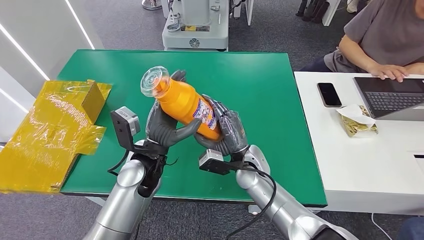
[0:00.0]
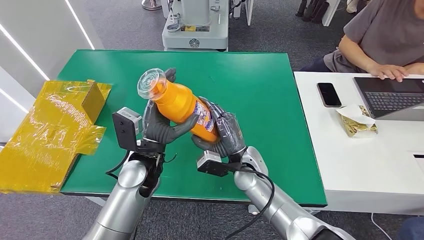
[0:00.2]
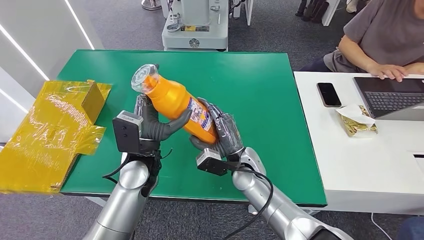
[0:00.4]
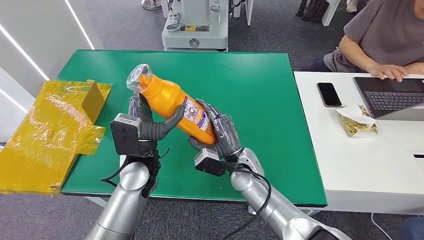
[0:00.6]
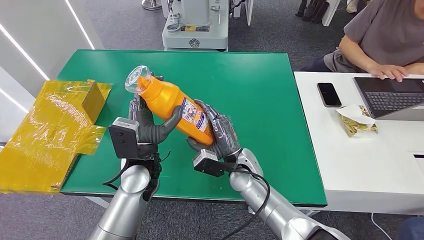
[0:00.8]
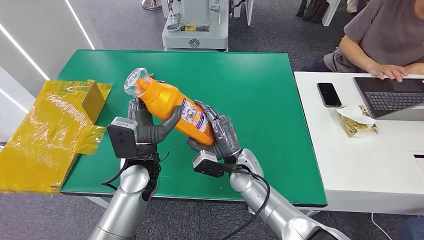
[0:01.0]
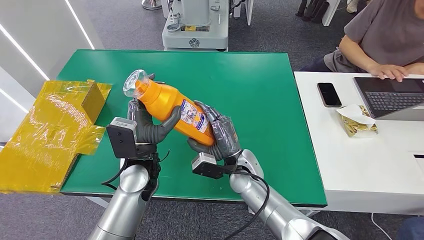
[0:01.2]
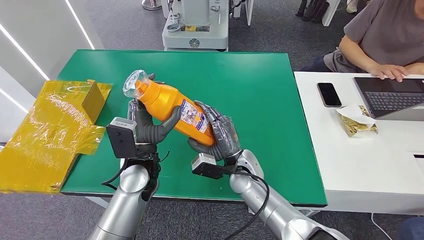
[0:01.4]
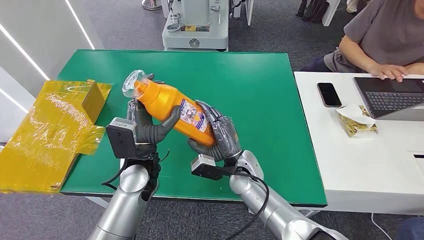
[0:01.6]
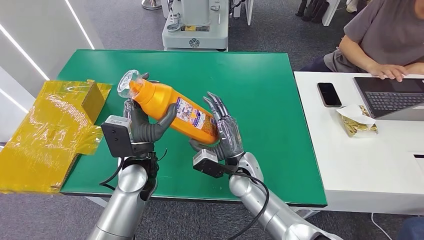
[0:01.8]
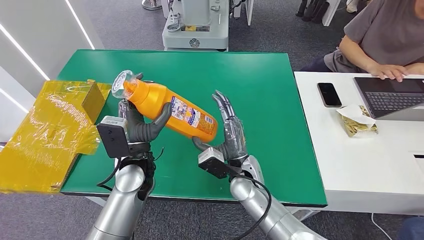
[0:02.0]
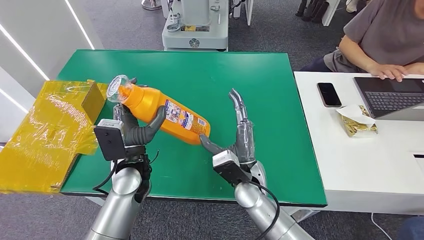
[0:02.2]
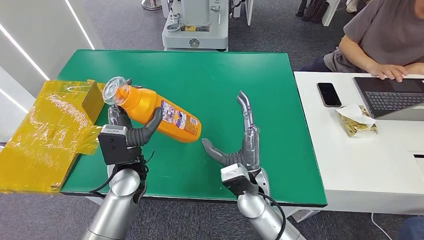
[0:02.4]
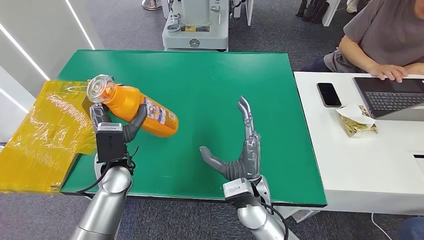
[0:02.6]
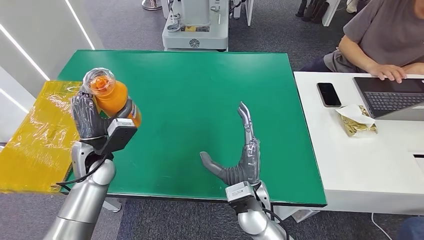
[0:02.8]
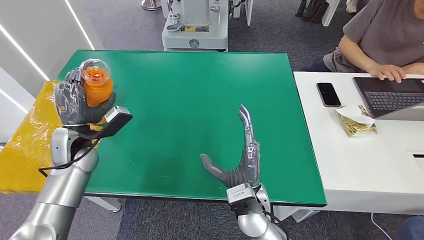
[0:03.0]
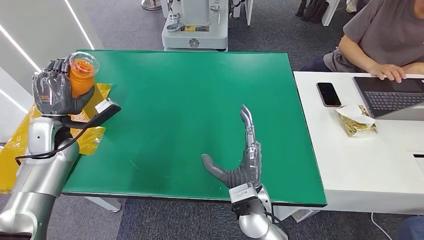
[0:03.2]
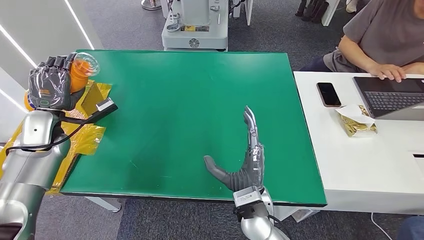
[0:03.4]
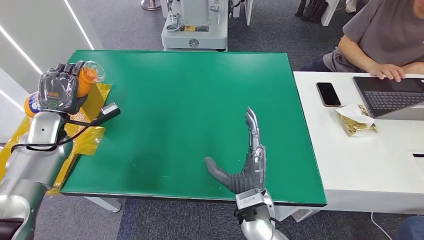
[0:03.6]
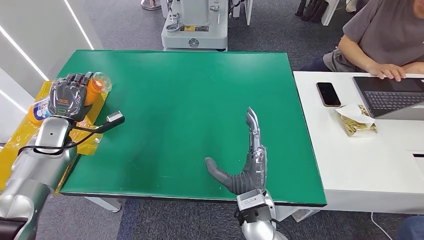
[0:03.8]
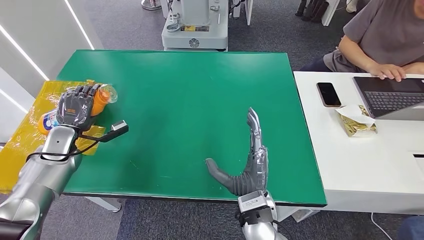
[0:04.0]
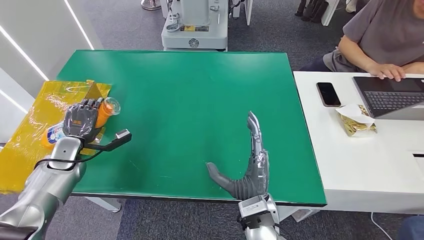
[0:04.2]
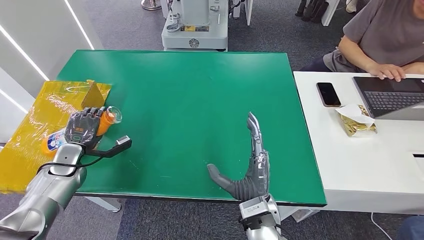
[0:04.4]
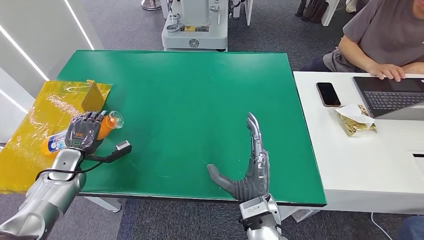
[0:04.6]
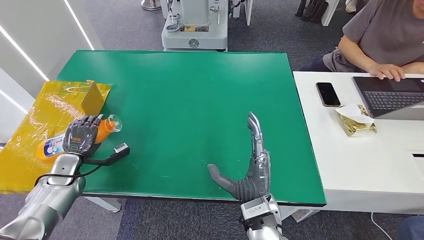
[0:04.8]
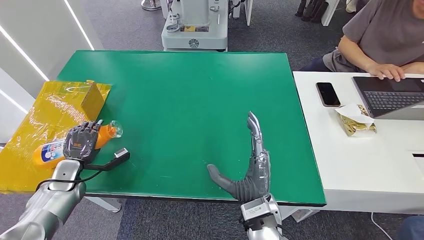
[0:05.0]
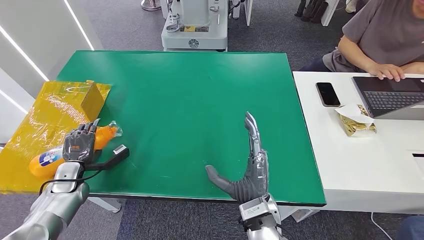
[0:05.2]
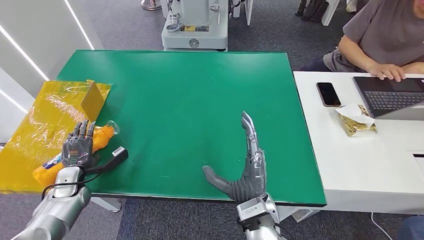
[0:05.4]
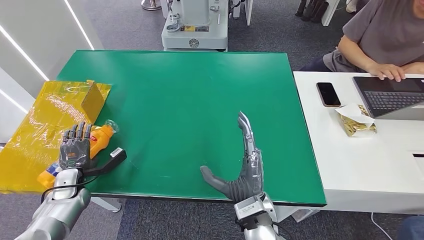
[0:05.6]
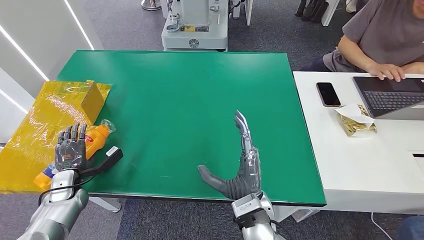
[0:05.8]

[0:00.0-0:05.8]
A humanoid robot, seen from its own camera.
Step, 0:00.0 to 0:05.6: Turn the bottle to the front side.
0:01.4 to 0:02.8: The left hand travels to the left by approximately 15 cm. The right hand travels backward by about 10 cm.
0:02.8 to 0:04.4: The left hand travels to the left and downward by some 15 cm.
0:04.4 to 0:05.8: The left hand travels backward and downward by roughly 10 cm.
